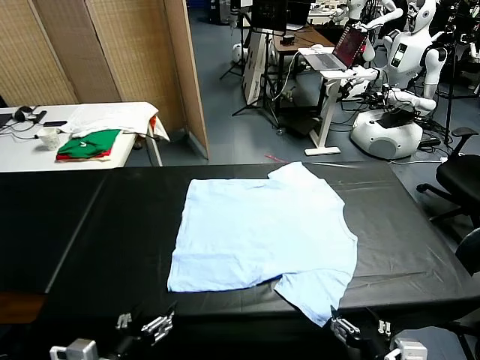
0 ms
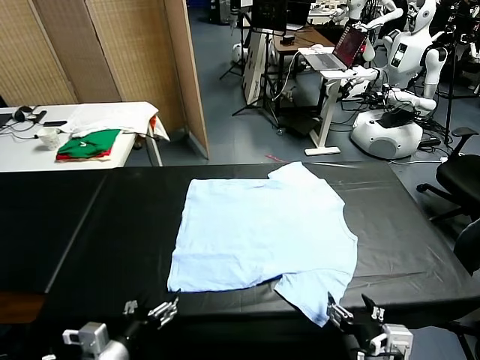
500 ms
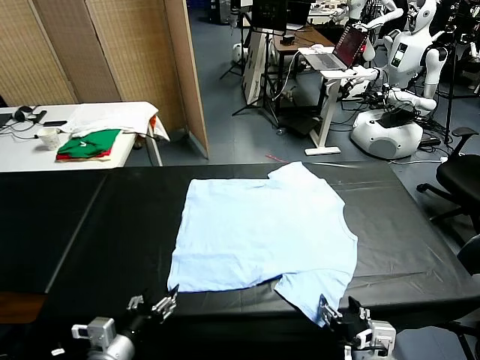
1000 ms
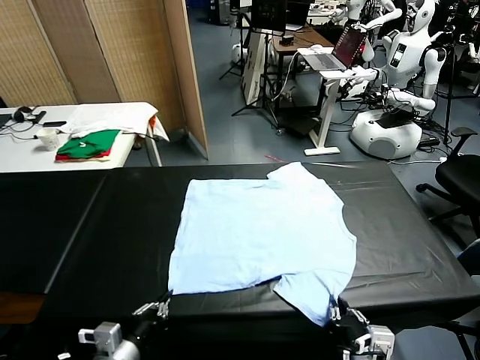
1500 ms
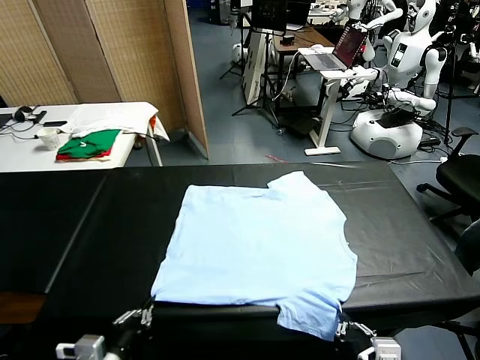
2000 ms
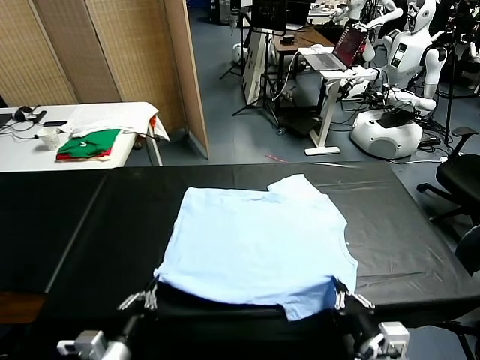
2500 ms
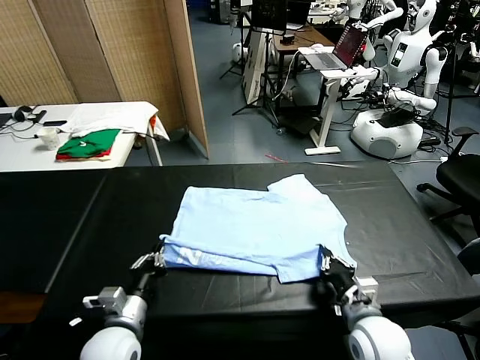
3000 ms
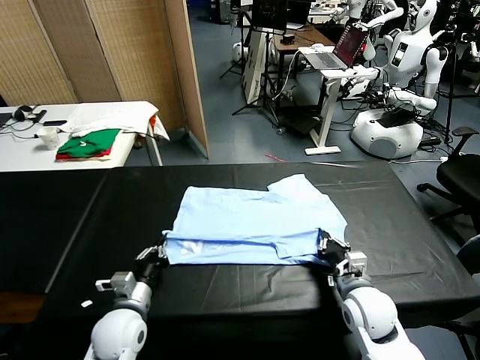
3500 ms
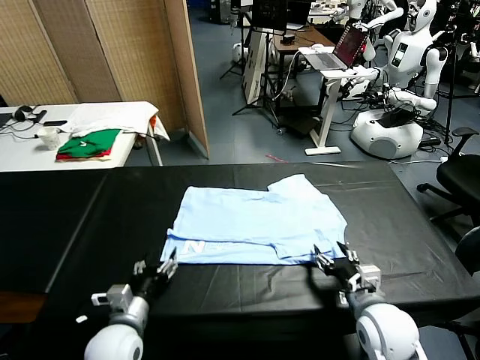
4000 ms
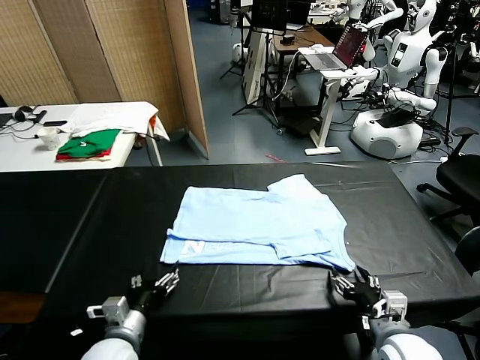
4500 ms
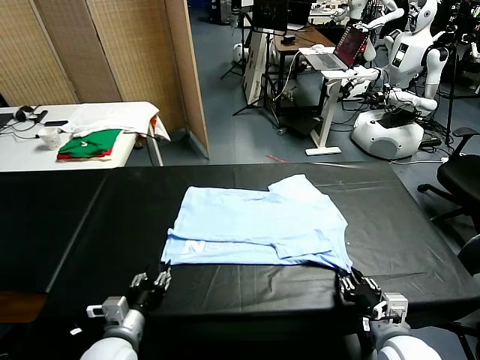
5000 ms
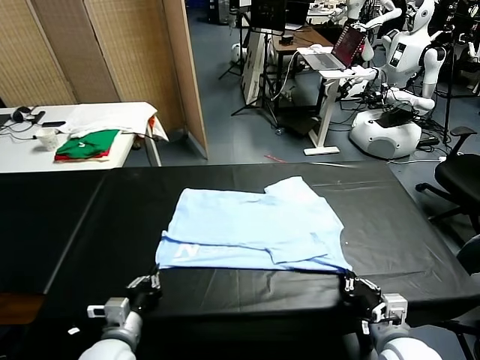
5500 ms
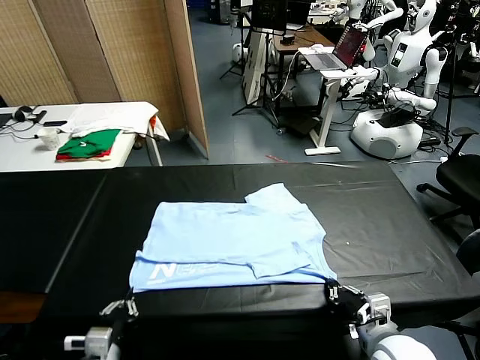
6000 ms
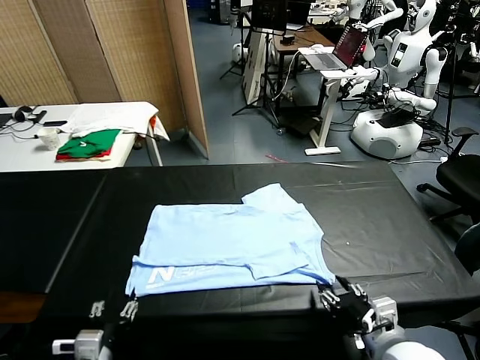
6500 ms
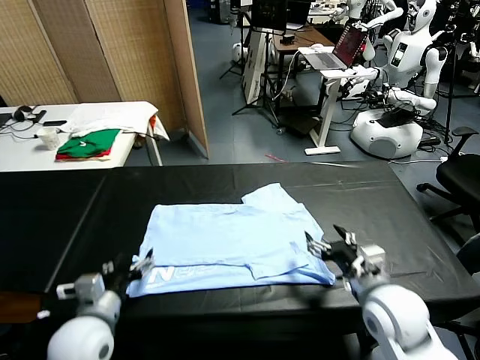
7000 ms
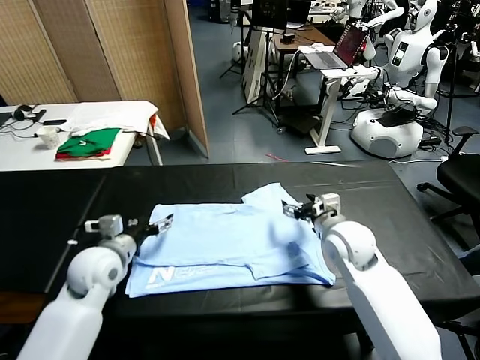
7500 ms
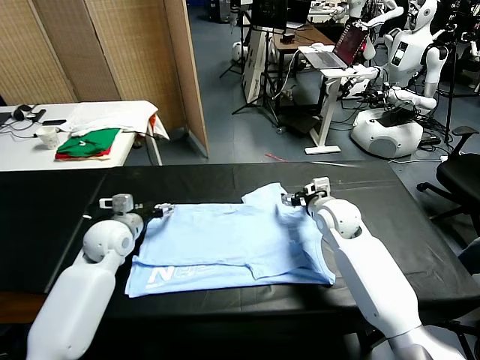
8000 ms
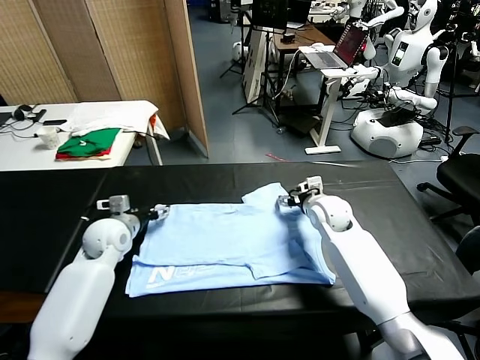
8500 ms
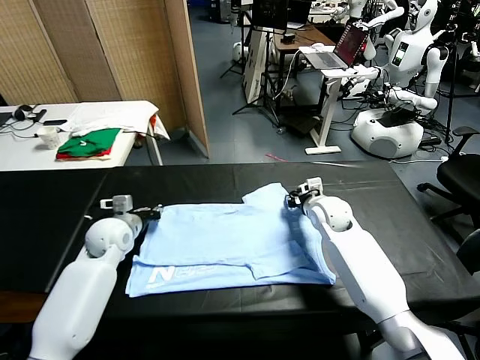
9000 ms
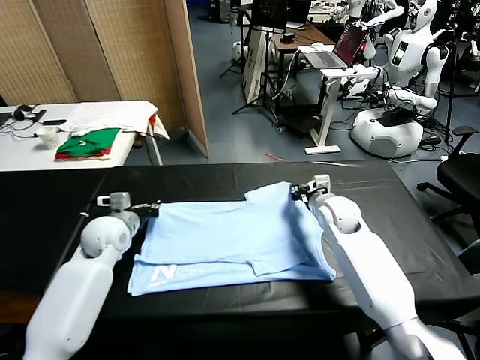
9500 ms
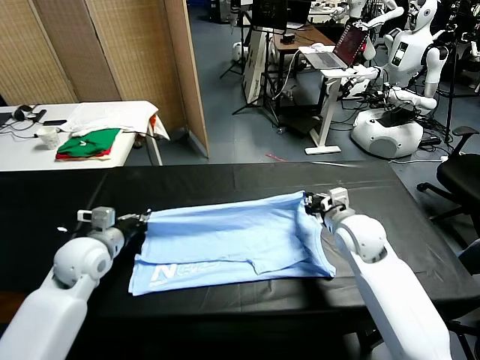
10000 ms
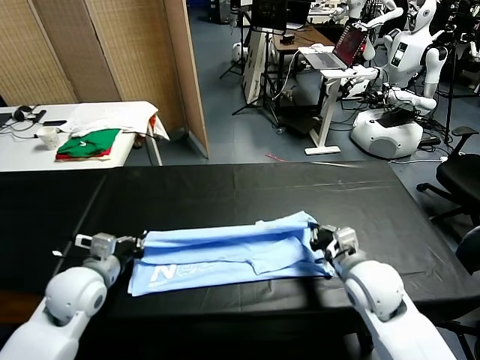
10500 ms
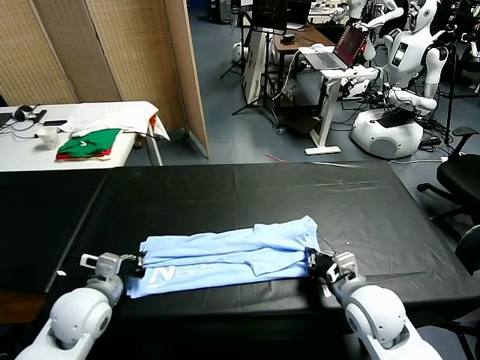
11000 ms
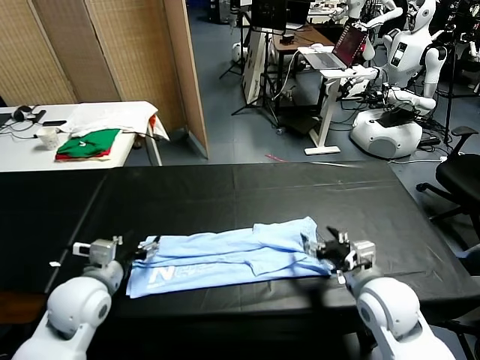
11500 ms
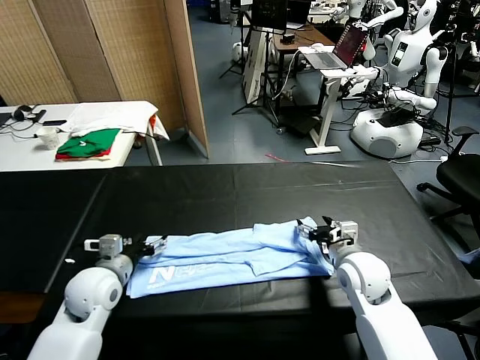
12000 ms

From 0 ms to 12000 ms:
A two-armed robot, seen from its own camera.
Task of the whole recording: fold and organize the clothes.
Step, from 0 ms to 1500 ms: use both grippers simultaneously to clamp the lower edge of the clothing fabric.
Step, from 2000 ms to 4000 ms: use both grippers to drag the lower edge of the fabric forward and fold it over the upper edge.
Step, from 4500 ms to 6000 ms: Drag the clothes downward with both gripper.
Step, from 7000 ms to 9000 ms: use both grippers simultaneously to clamp the upper edge of the clothing fabric.
Step, from 9500 ms to 11000 ms: use both grippers to drag the upper edge of the fabric backward and fold it over the lower edge.
From 2000 ms to 4000 ms: The right gripper moves forward, some 10 cm, and opens its fingers. The left gripper travels forward and downward by some 15 cm, and opens up.
From 4000 ms to 6000 ms: The right gripper closes its fingers; the left gripper is displaced backward by about 10 cm, and closes its fingers.
From 6000 ms to 8000 ms: The two grippers go some 30 cm forward. The left gripper opens up. Meanwhile the right gripper opens its fingers.
From 8000 ms to 10000 ms: The left gripper heads backward, covering some 10 cm, and closes up. Meanwhile the right gripper heads backward, covering roughly 15 cm, and closes up.
From 10000 ms to 12000 ms: The left gripper shifts by roughly 5 cm, and opens its fingers. The right gripper travels downward by about 5 cm, reaches roughly 10 cm backward, then returns, and opens.

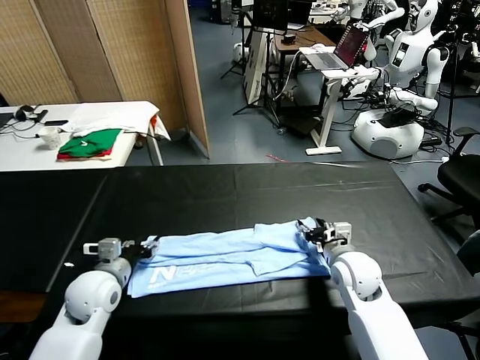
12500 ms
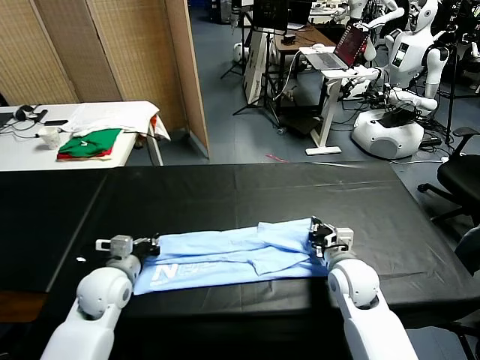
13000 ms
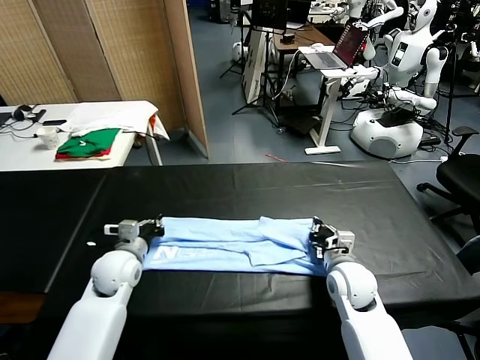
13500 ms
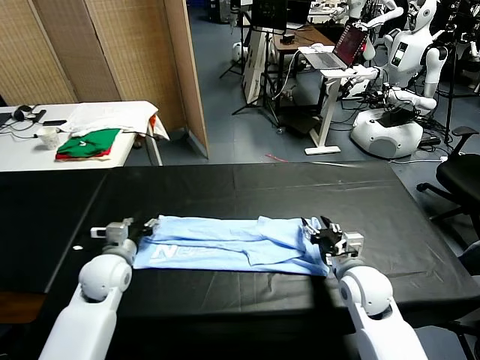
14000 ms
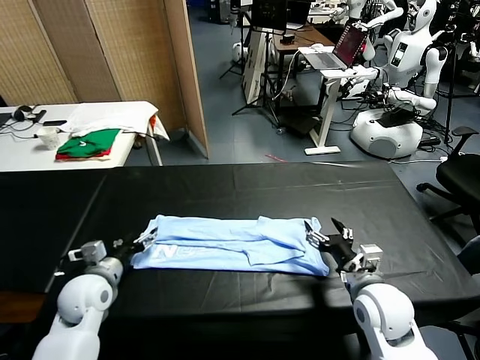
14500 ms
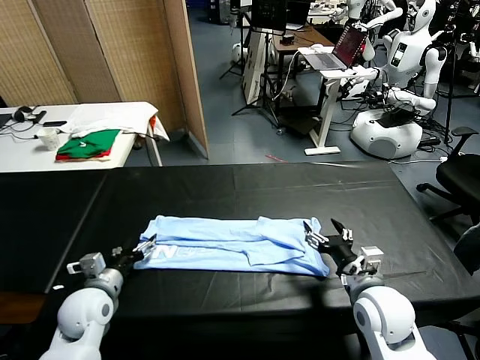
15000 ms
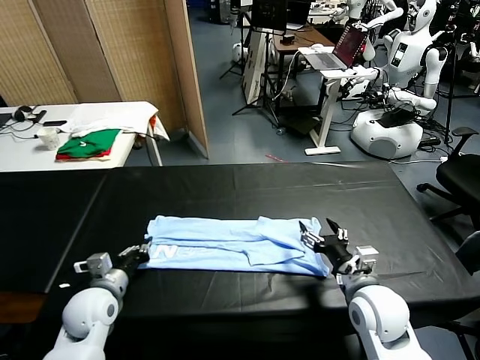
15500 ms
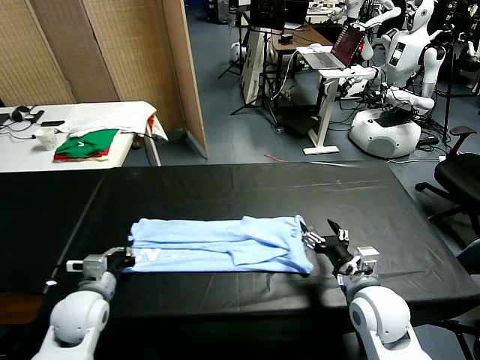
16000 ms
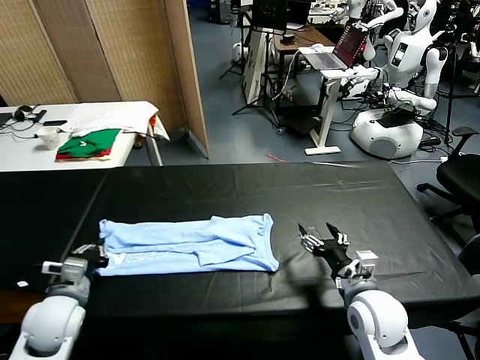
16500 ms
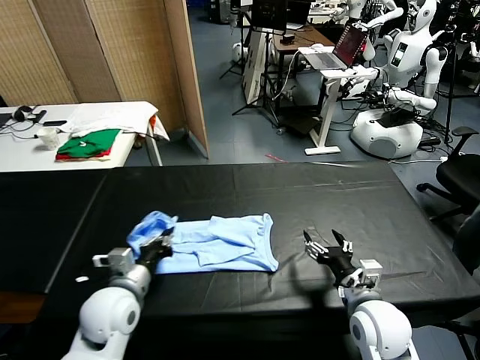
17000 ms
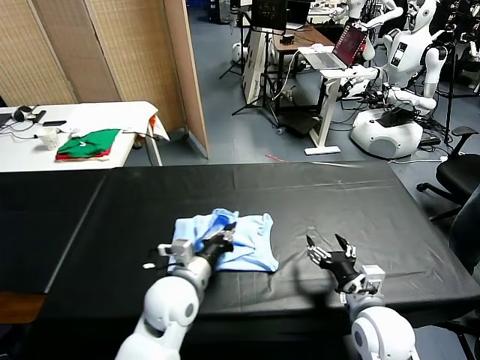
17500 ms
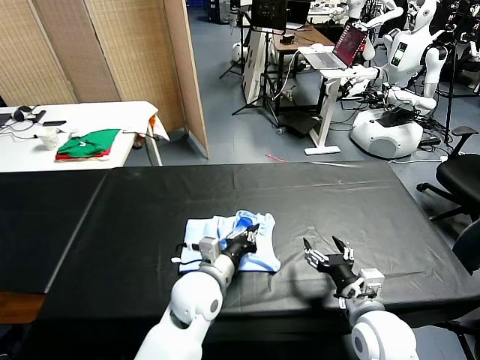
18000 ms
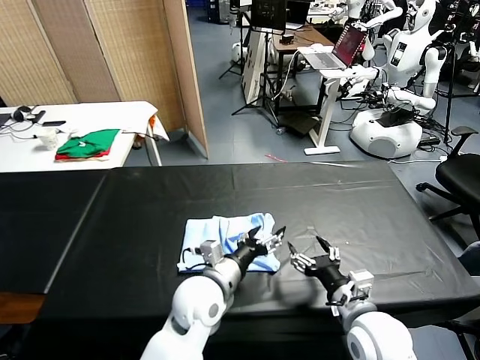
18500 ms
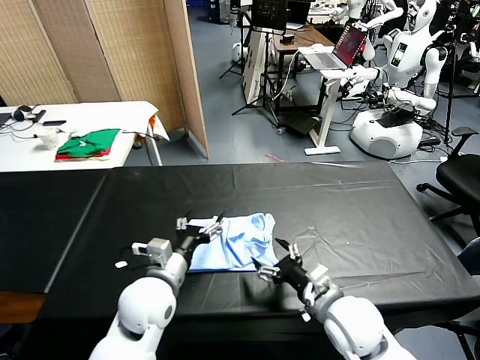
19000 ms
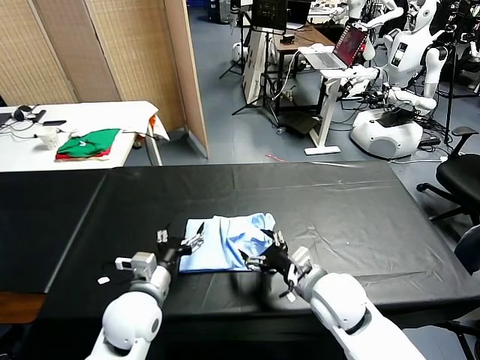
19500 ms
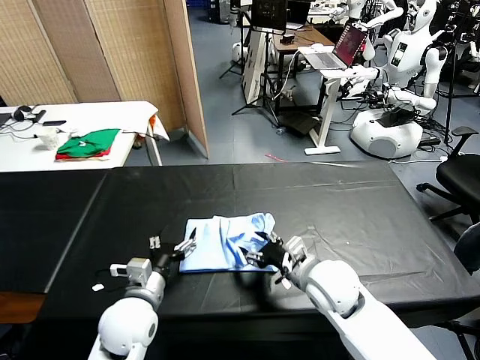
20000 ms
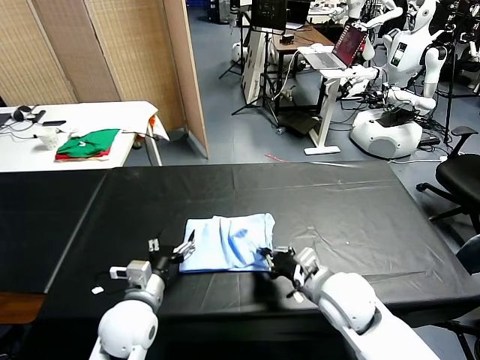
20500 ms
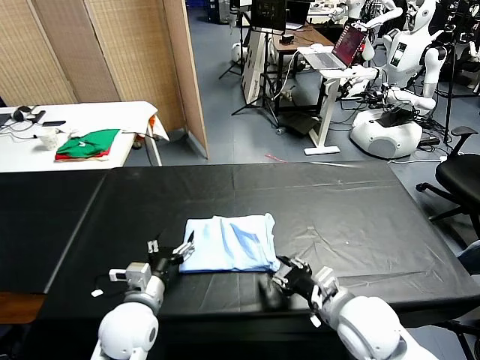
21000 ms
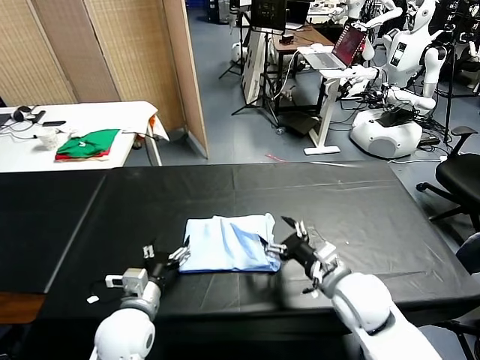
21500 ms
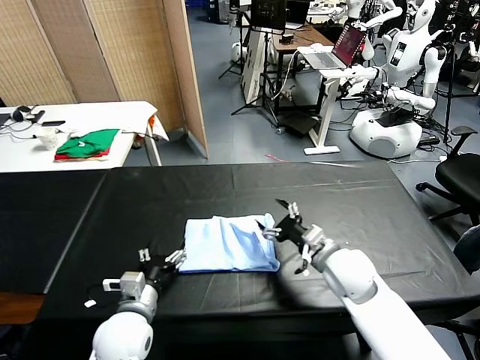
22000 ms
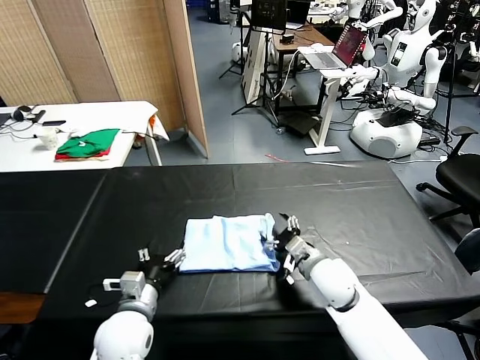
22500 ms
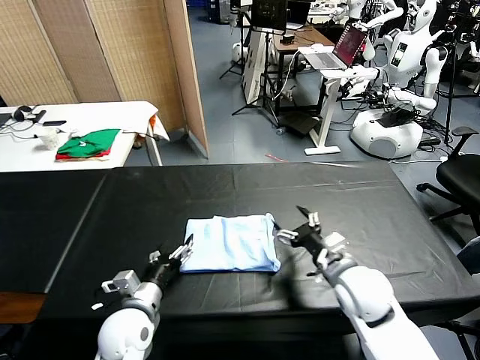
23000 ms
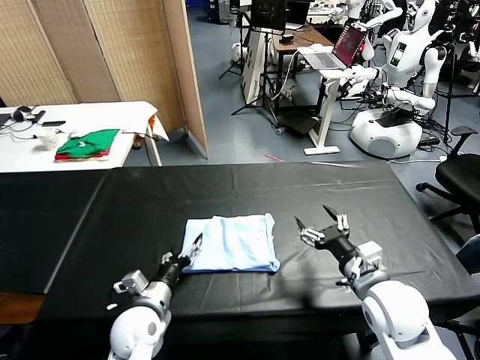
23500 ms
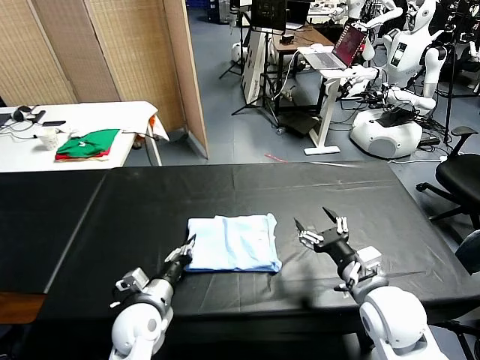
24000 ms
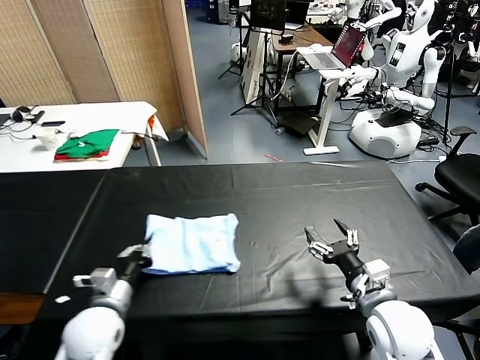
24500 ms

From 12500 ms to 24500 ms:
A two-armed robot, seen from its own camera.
Task of the whole recording: fold and organize the clothes.
Step, from 12500 ms to 15500 ms: use the left gripper to clamp the left edge of the fabric.
Step, from 16500 ms to 18000 ms: use the left gripper to drag the left edge of the fabric to the left and folds it over the right edge.
From 12500 ms to 14500 ms: The left gripper opens its fingers. Meanwhile the right gripper travels backward by roughly 10 cm, and opens its fingers.
From 14500 ms to 16500 ms: The left gripper heads backward, covering approximately 5 cm, and closes.
From 16500 ms to 18500 ms: The left gripper heads to the right, covering roughly 25 cm, and opens up.
From 18500 ms to 20500 ms: The left gripper travels to the left by roughly 15 cm, while the right gripper goes roughly 5 cm forward, and closes.
From 20500 ms to 22500 ms: The right gripper shifts about 5 cm forward, and opens.
From 22500 ms to 24500 ms: The right gripper shifts approximately 15 cm backward and to the right; the left gripper heads to the left, covering roughly 5 cm, and closes up.

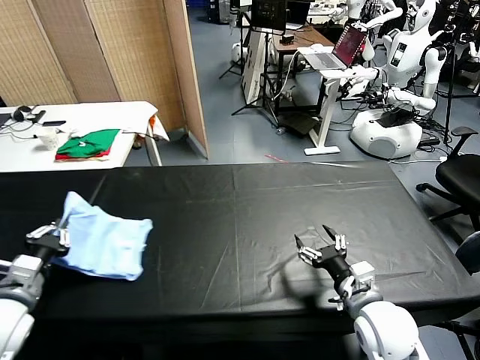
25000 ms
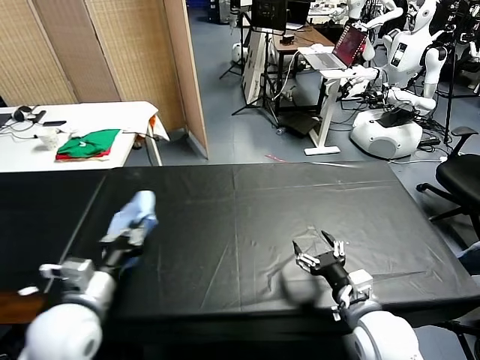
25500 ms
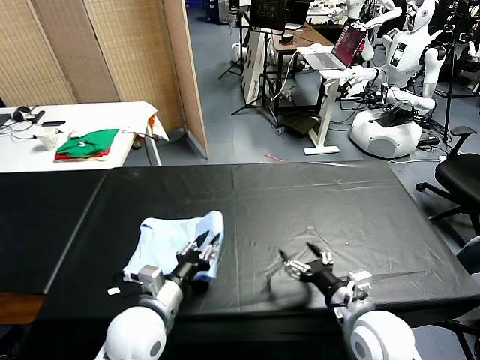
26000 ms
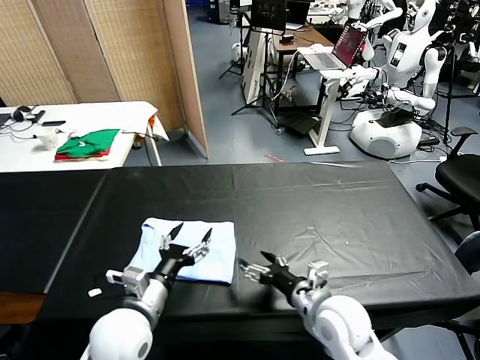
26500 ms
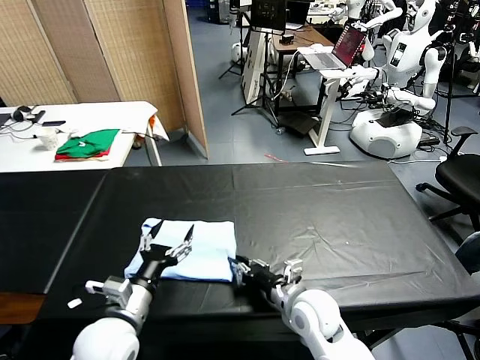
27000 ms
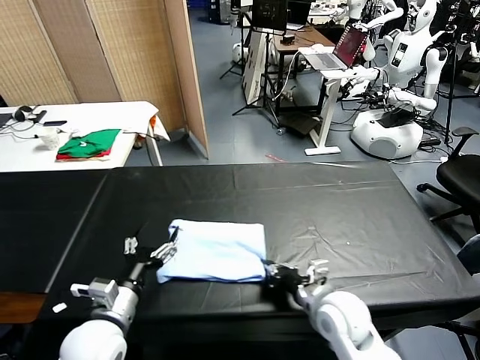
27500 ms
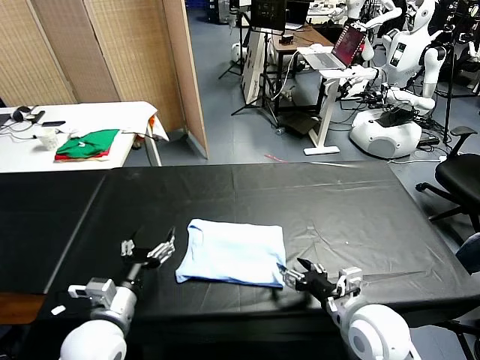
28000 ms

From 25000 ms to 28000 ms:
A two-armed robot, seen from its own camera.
Task of the whole recording: fold and organize the clothes.
Step, from 26500 ms to 27500 ms: Drag the clothes to the center of the table.
From 25000 ms to 26500 ms: The right gripper is displaced to the left by some 5 cm; the left gripper travels to the right by some 20 cm, and opens up.
From 26500 ms to 28000 ms: The left gripper ends up approximately 5 cm from where it was, while the right gripper changes place by about 5 cm, and closes up.
